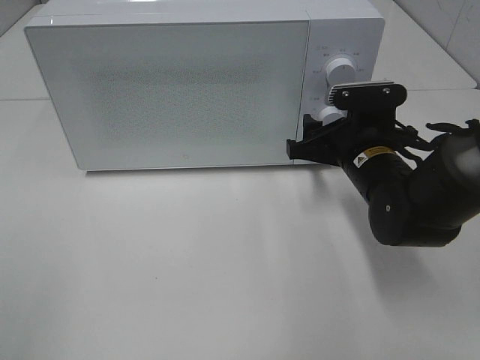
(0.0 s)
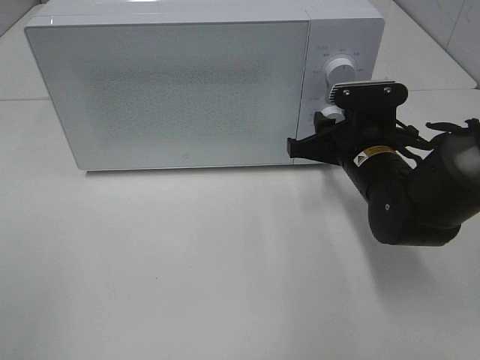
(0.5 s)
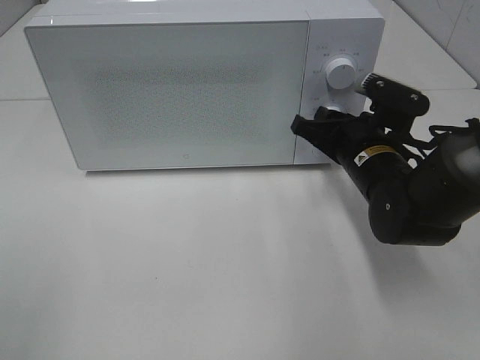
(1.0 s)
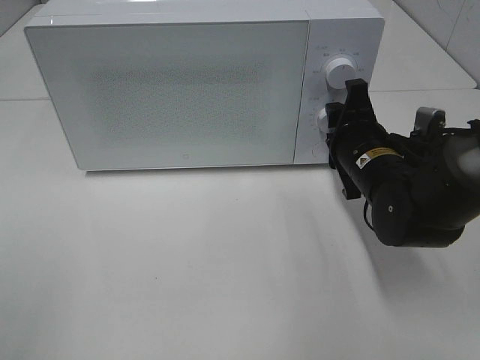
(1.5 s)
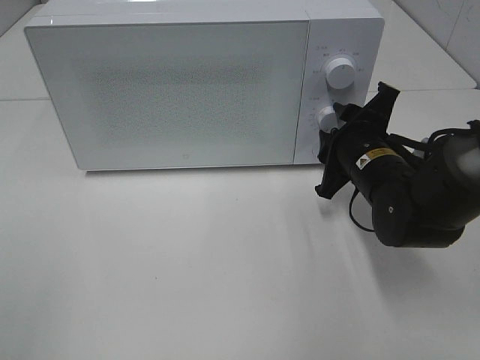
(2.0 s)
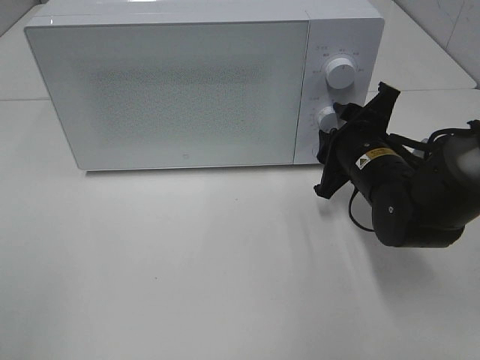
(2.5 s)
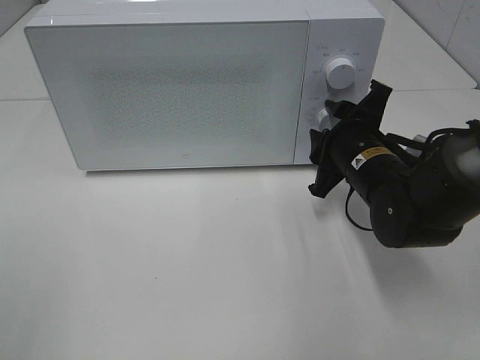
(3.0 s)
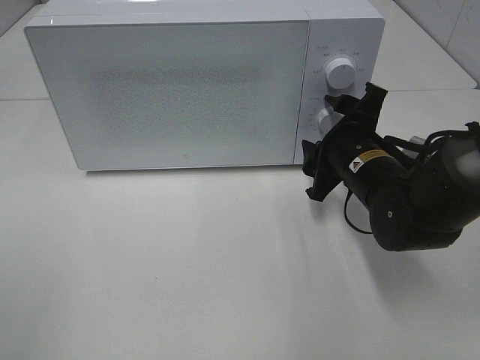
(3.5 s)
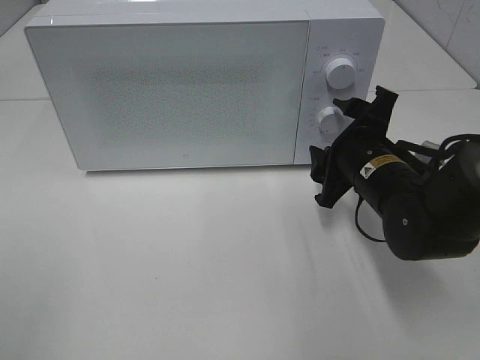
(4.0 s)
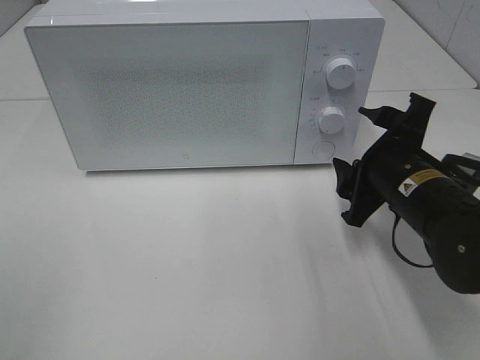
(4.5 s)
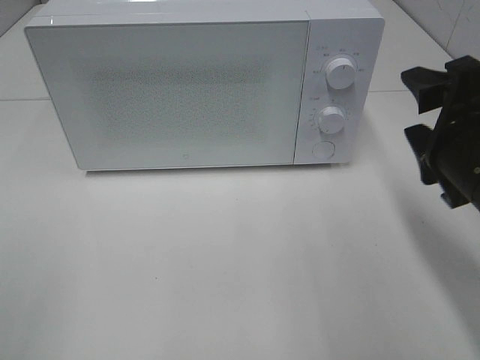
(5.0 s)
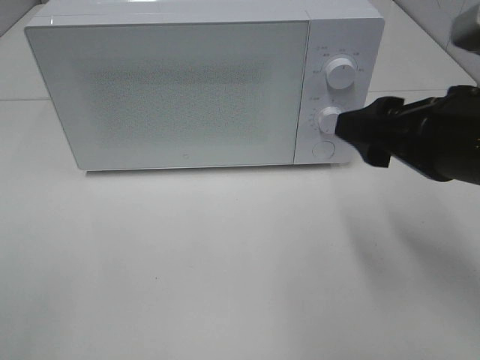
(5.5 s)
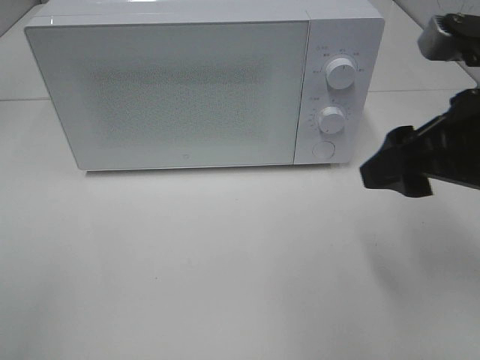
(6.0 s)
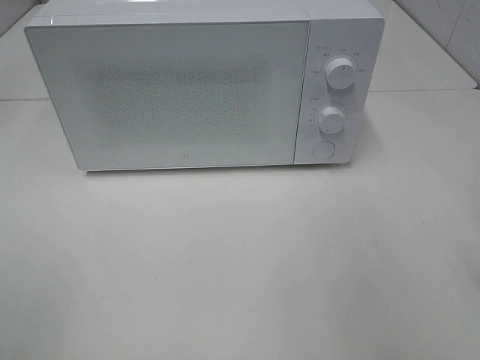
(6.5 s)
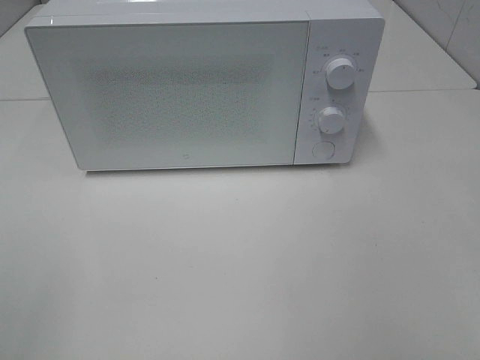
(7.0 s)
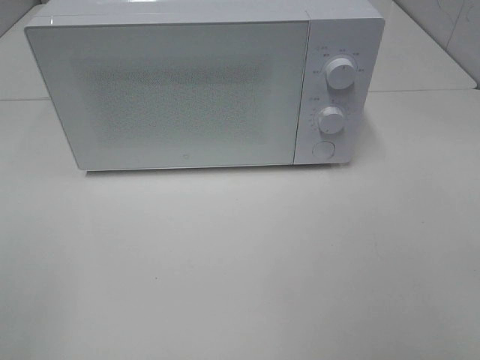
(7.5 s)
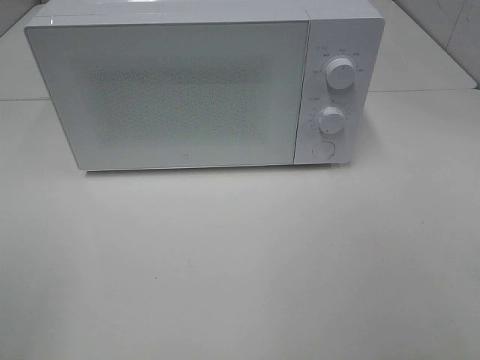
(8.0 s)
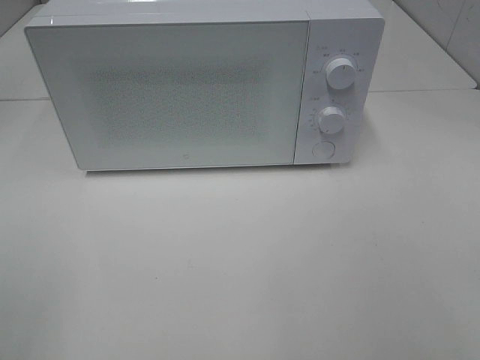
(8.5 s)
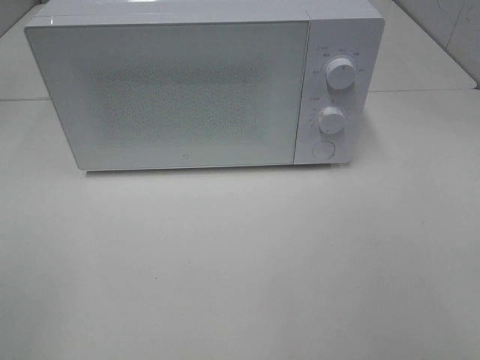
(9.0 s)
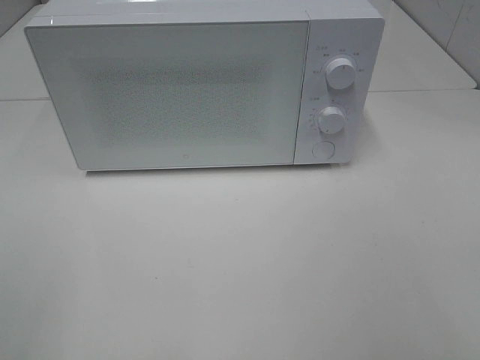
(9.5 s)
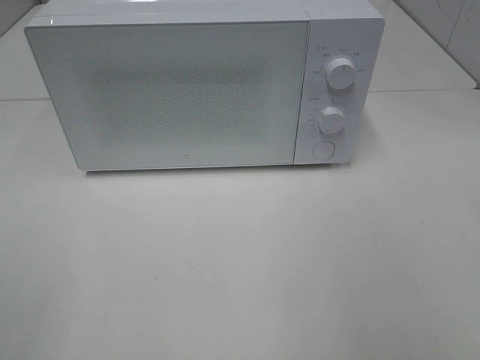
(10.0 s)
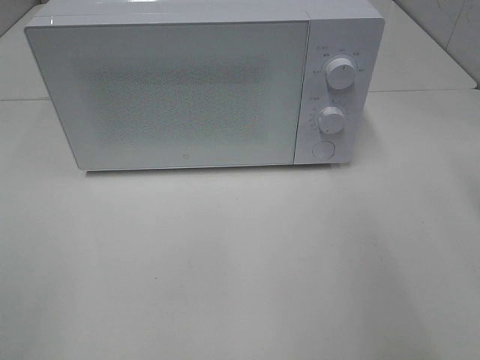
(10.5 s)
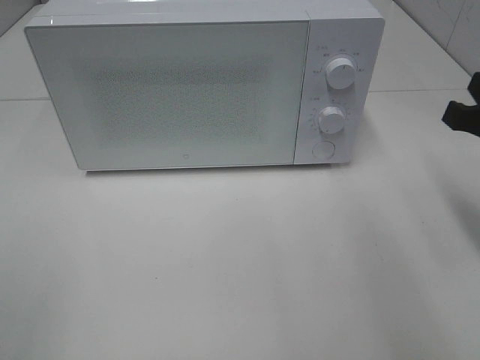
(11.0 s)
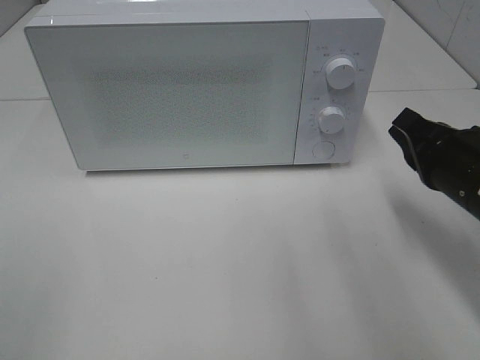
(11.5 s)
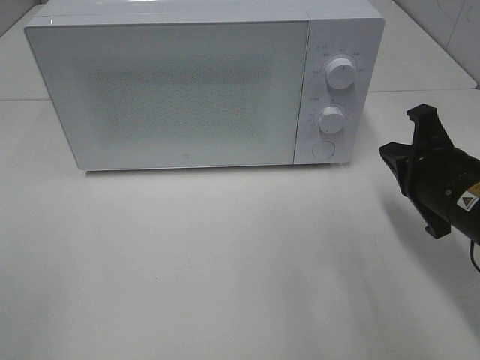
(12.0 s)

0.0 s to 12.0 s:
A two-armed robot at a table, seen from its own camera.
Task of the whole recording: Heat the burger.
Step, 0.0 to 3.0 s: Right hand: twist timer button.
2.0 to 4.0 s: The grippers move only a little.
4.0 to 6.0 s: The right gripper moves upward and backward, about 15 cm.
6.0 to 8.0 s: The right gripper travels backward and to the right by some 20 cm.
10.0 to 12.0 s: The right gripper travels downward and forward by approximately 25 cm, and closes.

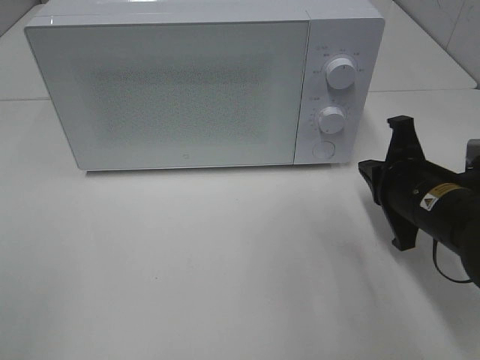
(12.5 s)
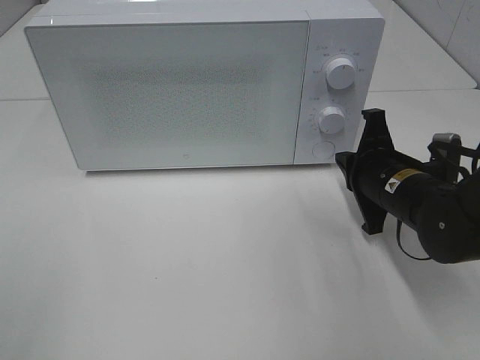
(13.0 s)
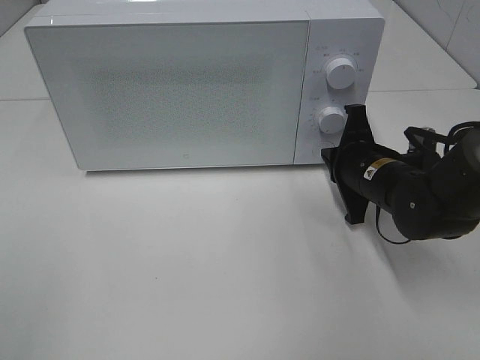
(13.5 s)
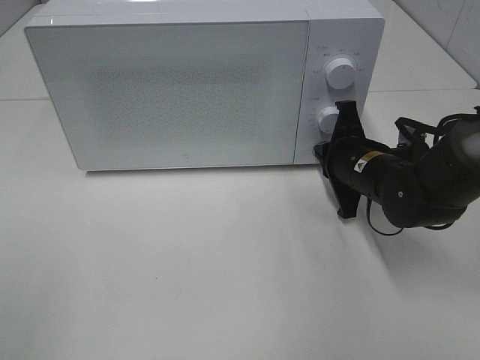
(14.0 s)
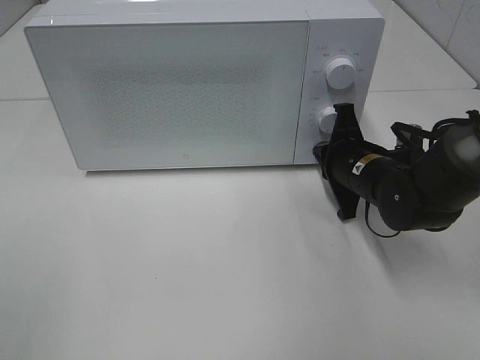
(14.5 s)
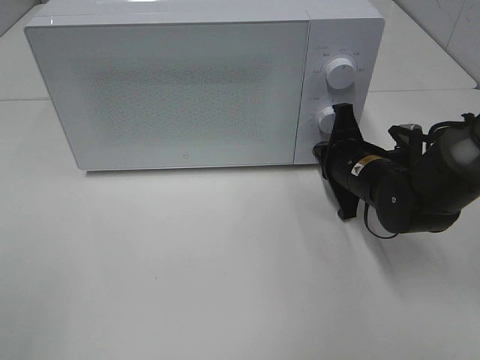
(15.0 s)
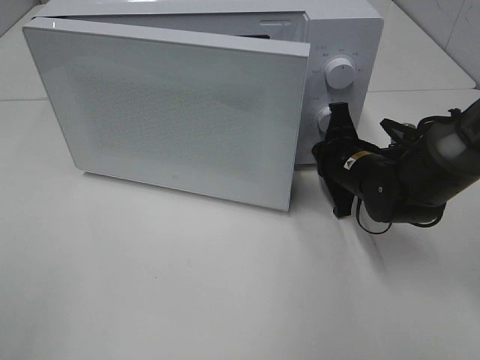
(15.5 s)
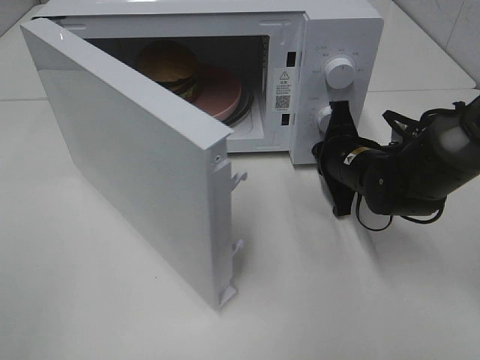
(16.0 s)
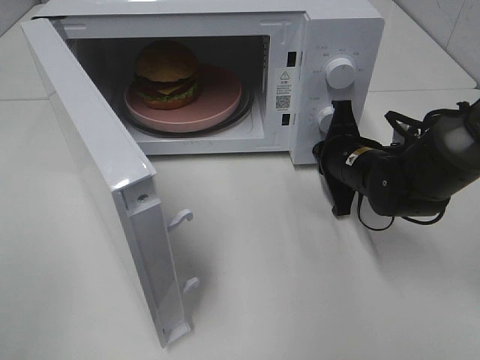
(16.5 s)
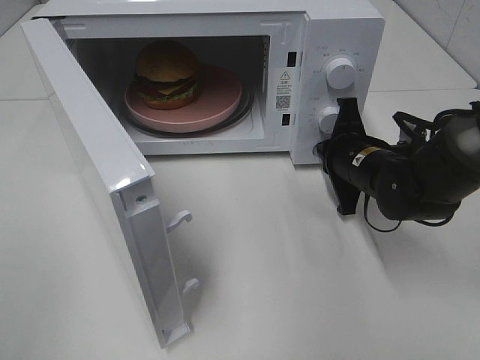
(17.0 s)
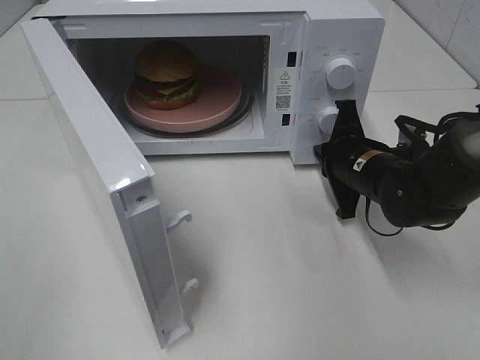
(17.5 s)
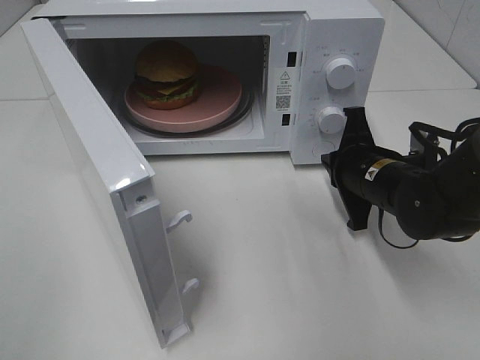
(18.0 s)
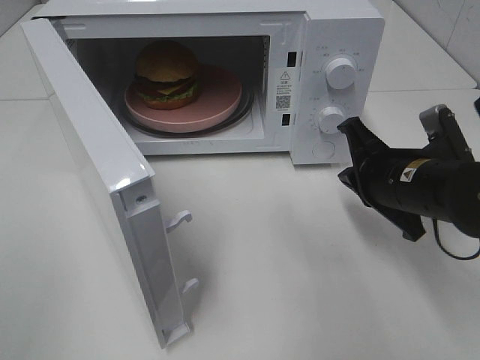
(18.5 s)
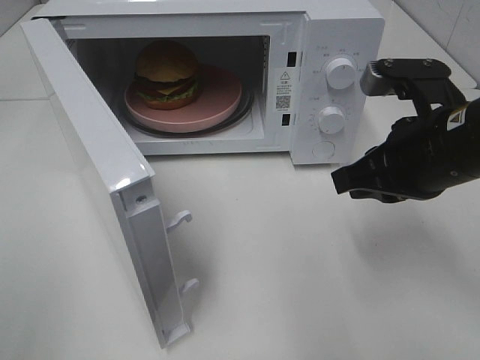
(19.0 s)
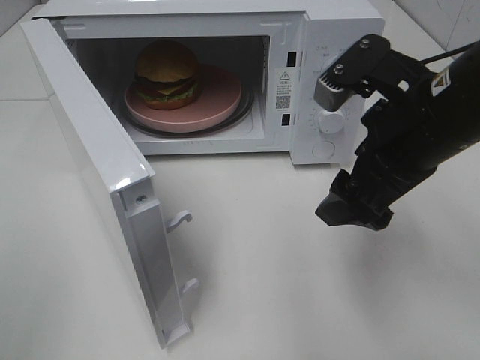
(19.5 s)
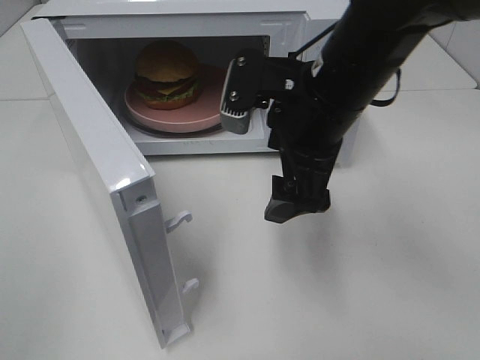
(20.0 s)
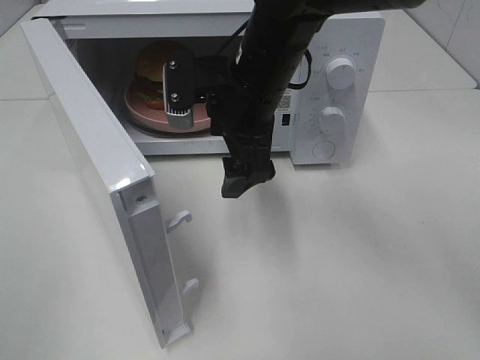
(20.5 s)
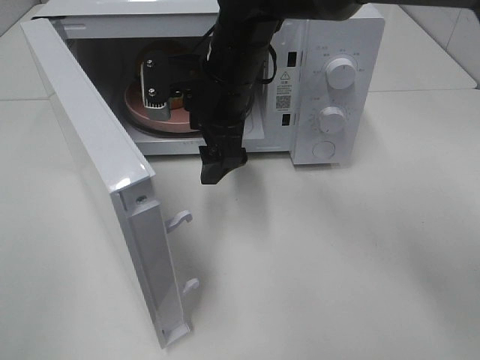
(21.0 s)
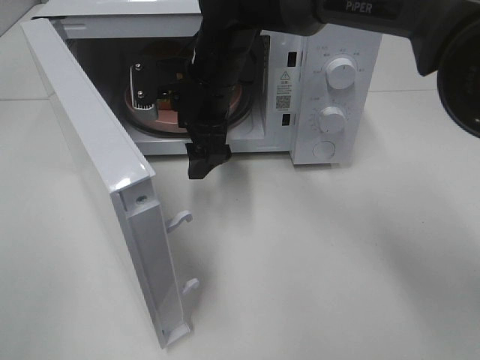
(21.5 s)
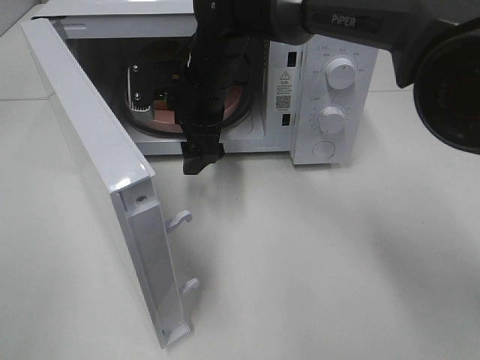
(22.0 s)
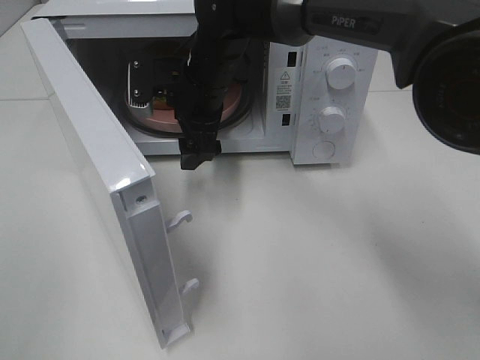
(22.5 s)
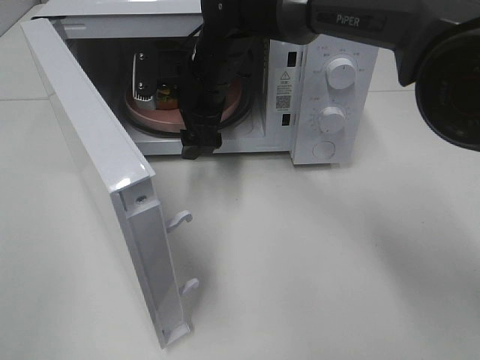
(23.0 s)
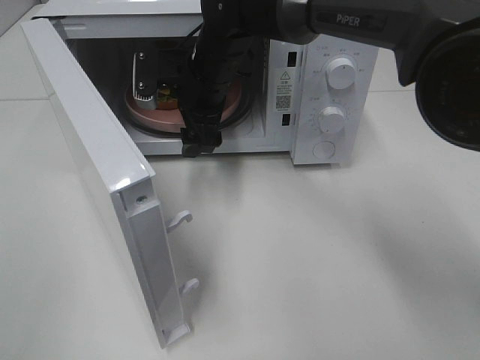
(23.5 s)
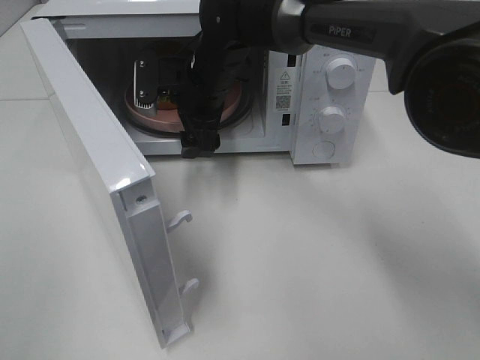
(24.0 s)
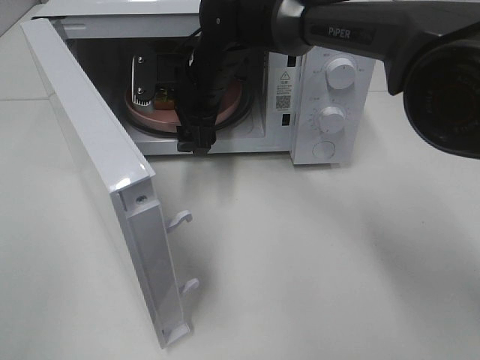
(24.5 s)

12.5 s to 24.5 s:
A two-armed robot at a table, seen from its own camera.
Task of the whole recording: Heat the burger.
Step, 12.5 to 17.5 s: Right hand: press the switch.
12.5 to 14.5 s: The right gripper goes approximately 10 cm forward.
16.5 to 18.5 s: The right gripper heads backward, covering approximately 10 cm.
18.5 to 20.5 s: The right gripper heads to the left, upward and forward, covering approximately 20 cm, and opens.
20.5 to 22.5 s: The right gripper goes approximately 10 cm forward and to the left.
22.5 to 24.5 s: The grippers stay close to where they were, moving slightly.

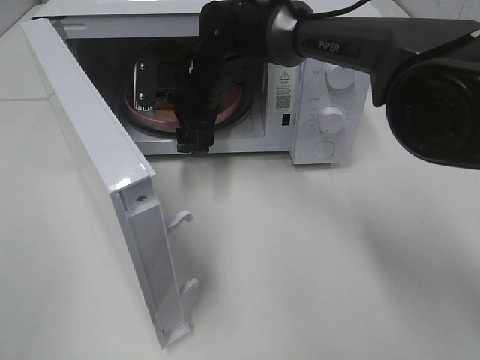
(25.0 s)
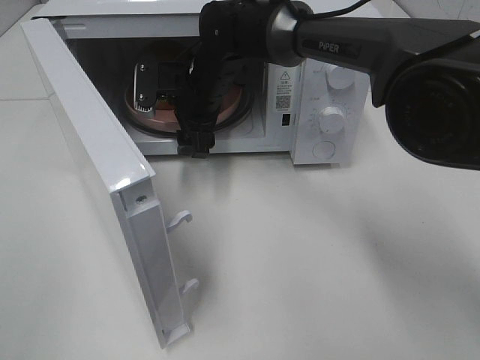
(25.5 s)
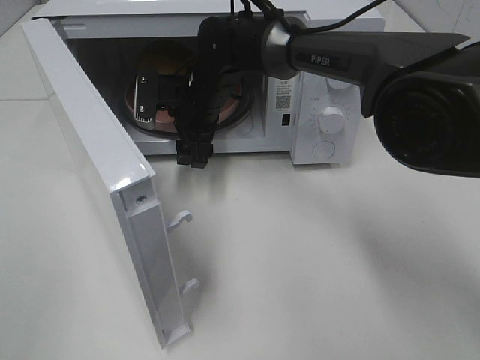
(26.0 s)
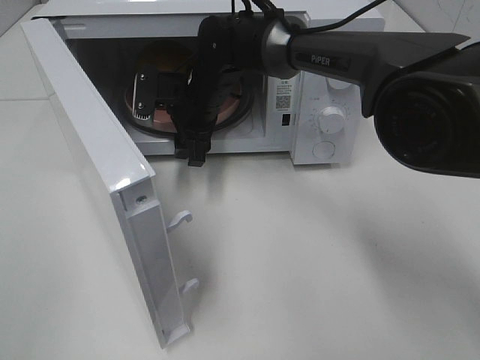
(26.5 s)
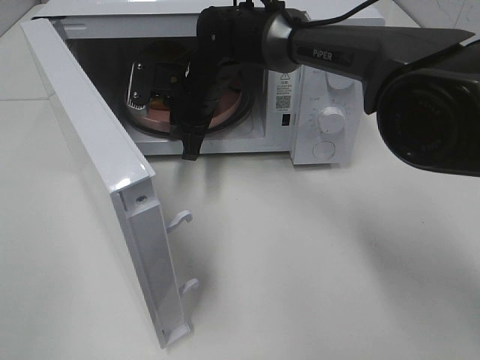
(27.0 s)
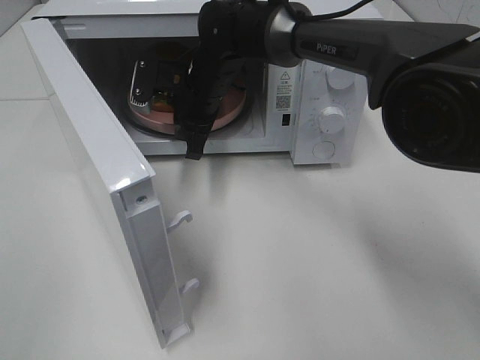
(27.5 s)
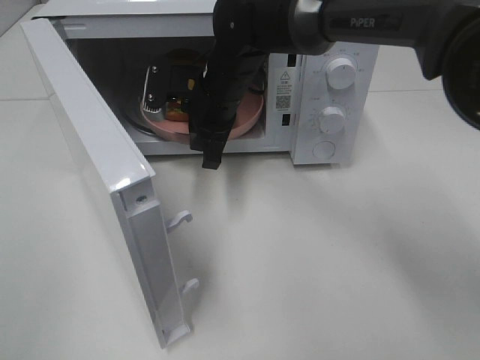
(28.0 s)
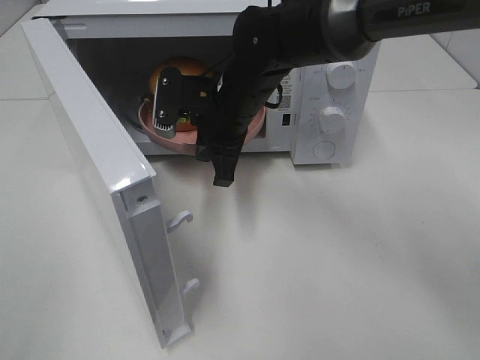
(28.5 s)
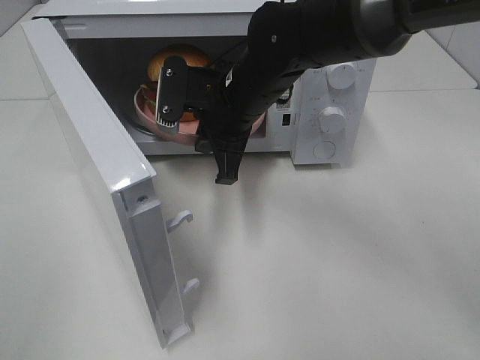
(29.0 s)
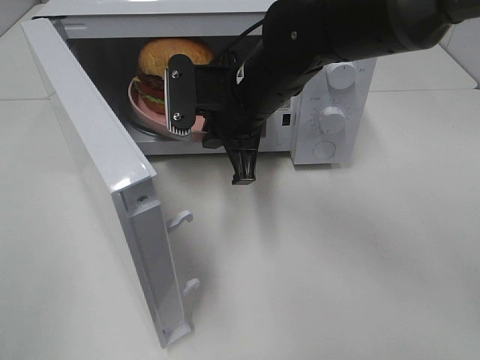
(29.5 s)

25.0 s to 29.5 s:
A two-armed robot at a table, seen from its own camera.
Task of the whole recording: Heat the burger.
Step, 25.0 to 27.0 s: Right hand: grab the plate with the hamburger.
25.0 to 27.0 s: The right gripper closes.
27.0 to 29.5 s: The right gripper moves backward, to the right and upward, approximately 15 cm.
